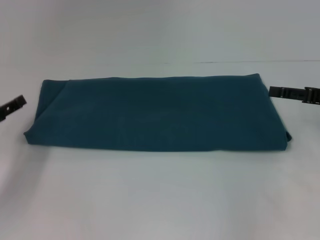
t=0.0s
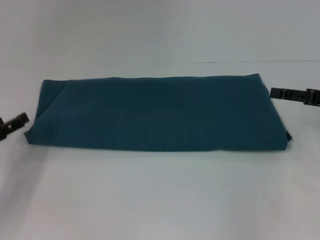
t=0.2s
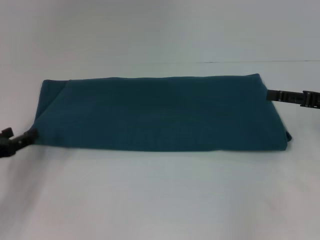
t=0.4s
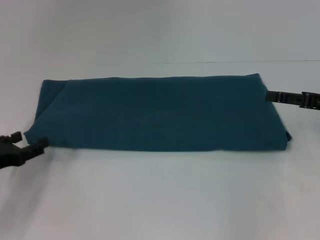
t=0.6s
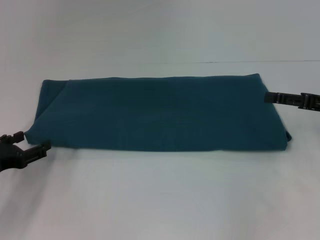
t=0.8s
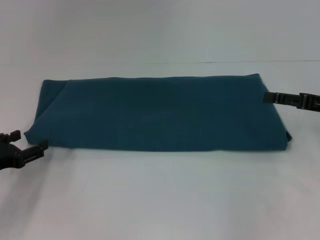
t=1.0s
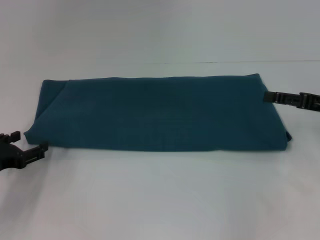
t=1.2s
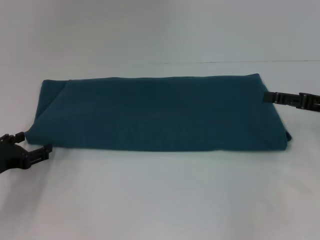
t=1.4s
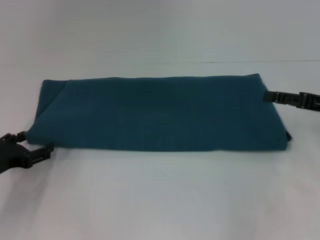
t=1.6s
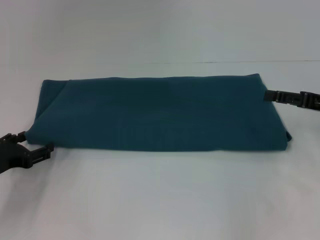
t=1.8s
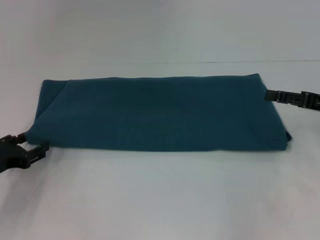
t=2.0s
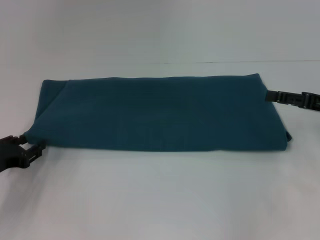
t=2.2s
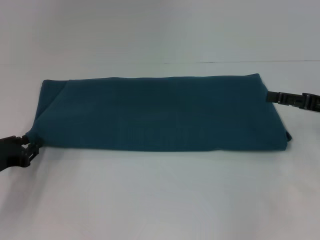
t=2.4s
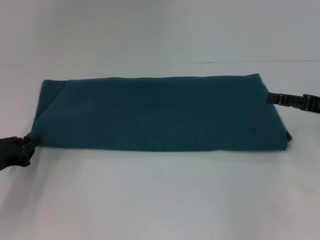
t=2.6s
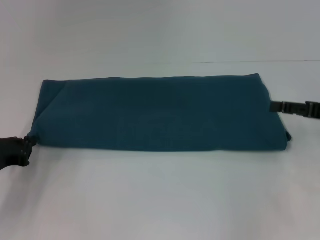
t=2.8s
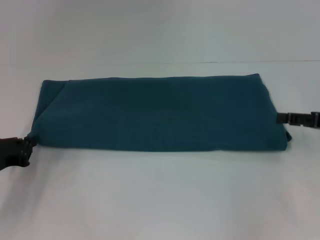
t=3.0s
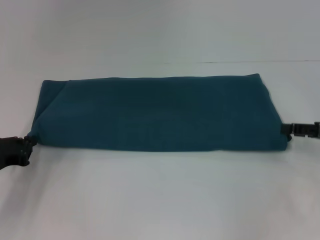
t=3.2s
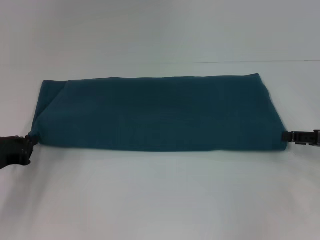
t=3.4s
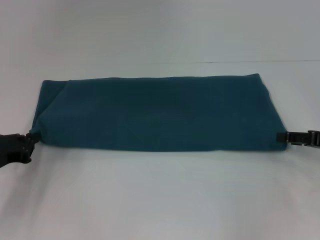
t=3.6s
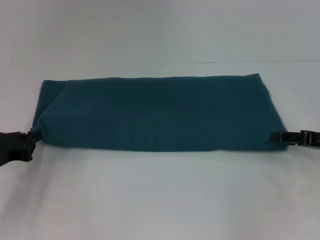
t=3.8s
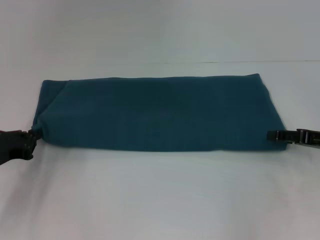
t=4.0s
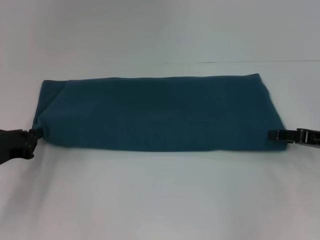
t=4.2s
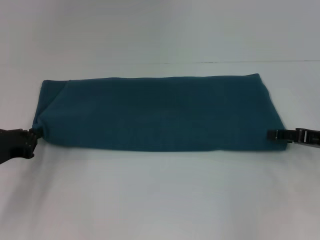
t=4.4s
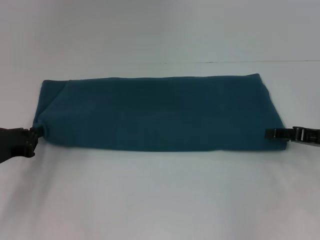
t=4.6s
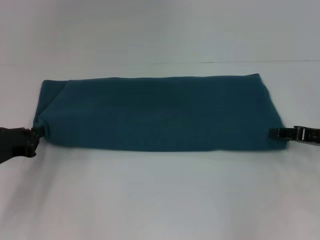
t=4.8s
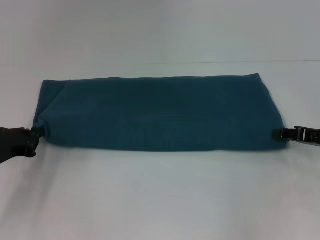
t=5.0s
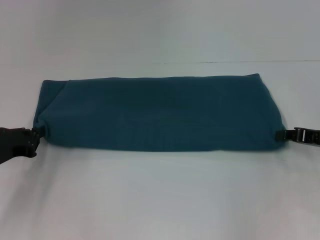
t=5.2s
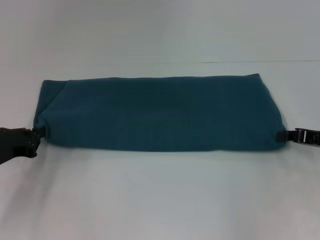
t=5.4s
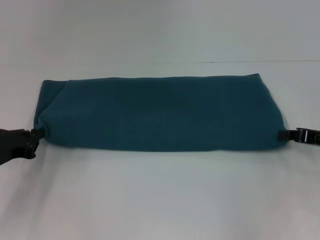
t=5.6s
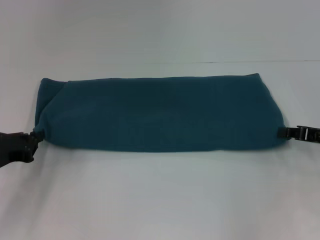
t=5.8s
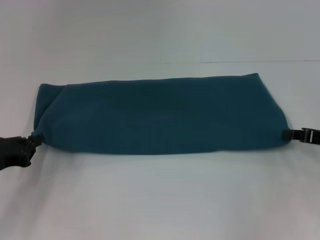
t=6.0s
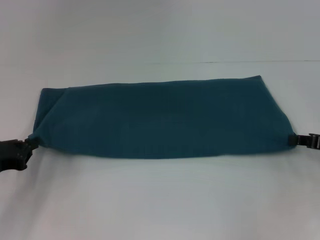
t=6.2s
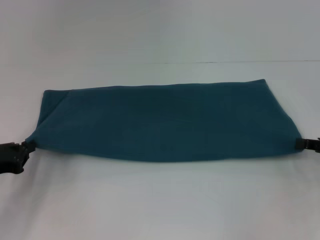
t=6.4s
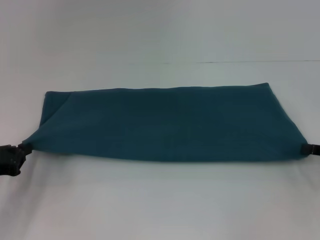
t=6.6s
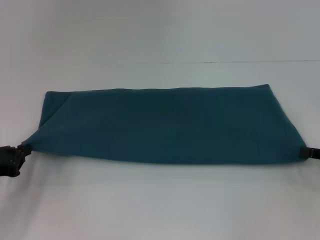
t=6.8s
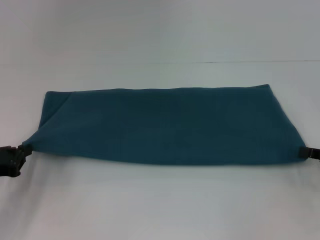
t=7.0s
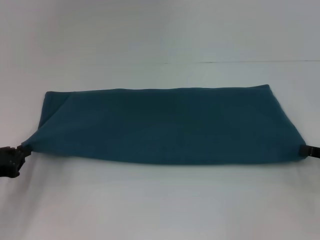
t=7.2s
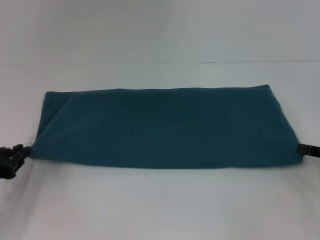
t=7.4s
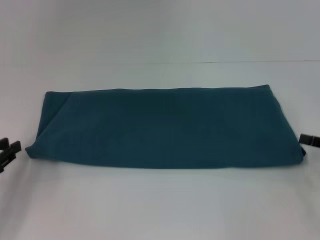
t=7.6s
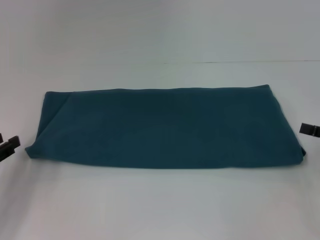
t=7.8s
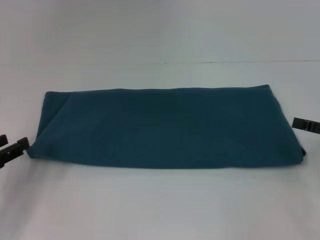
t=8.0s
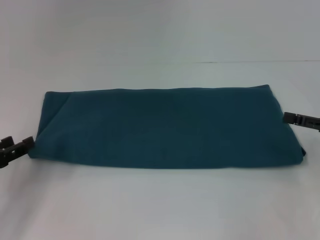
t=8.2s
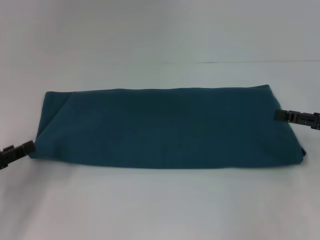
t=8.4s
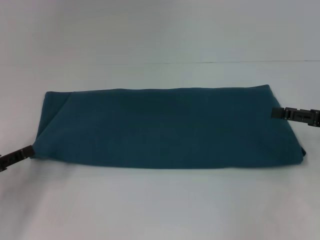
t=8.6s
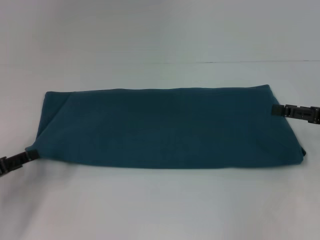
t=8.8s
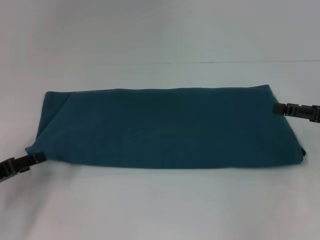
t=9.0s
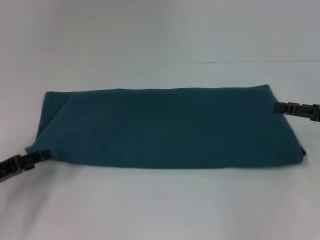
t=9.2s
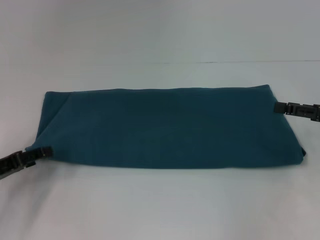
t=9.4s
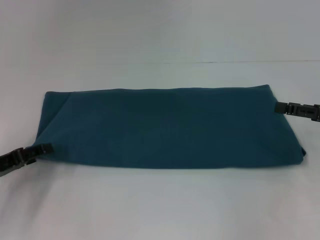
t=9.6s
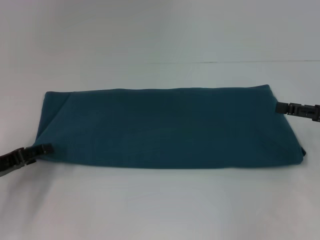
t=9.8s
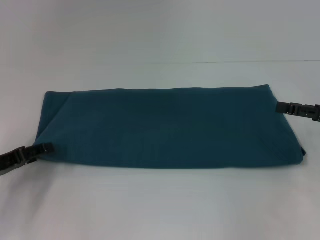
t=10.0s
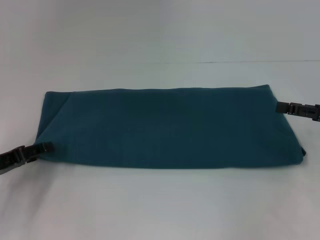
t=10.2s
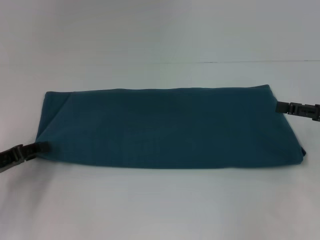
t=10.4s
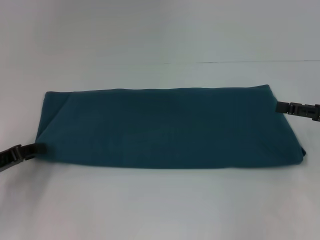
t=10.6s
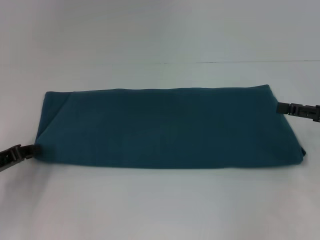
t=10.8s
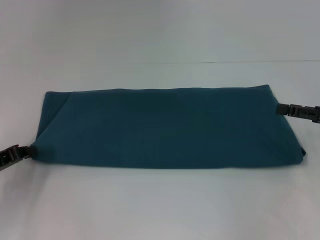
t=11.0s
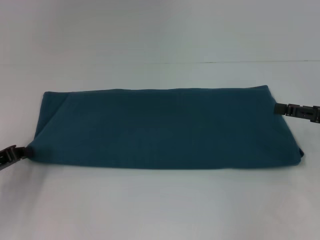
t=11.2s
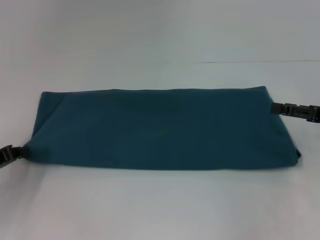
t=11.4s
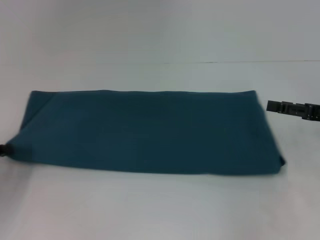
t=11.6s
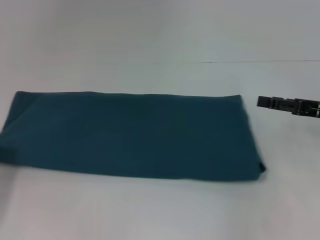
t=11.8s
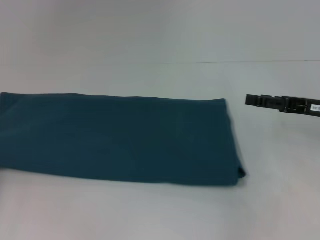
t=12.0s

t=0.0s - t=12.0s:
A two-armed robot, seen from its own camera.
Step, t=0.0s - t=8.0s: Pull the clothes with your left hand.
Step, t=0.0s - t=8.0s: Pull the clothes with your right hand.
t=1.6s - t=3.0s: The left gripper closes.
t=3.0s - t=4.4s: The grippers make only small movements.
t=4.4s - t=6.0s: The right gripper closes up.
t=6.0s - t=7.6s: The right gripper changes place by roughly 5 cm.
t=7.6s - t=9.0s: The left gripper opens its fingers. Meanwhile the right gripper shifts by about 5 cm, and opens up.
t=9.0s - t=10.4s: There are only small adjustments of the grippers.
t=10.4s - t=12.0s: The left gripper moves to the left, some 5 cm, and closes.

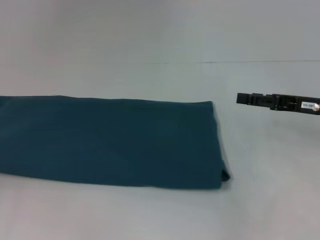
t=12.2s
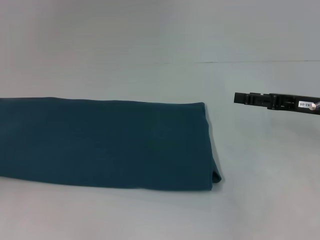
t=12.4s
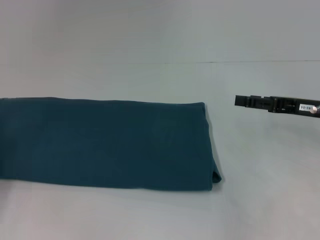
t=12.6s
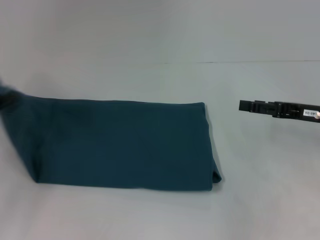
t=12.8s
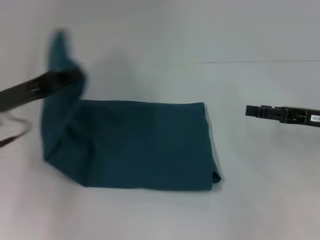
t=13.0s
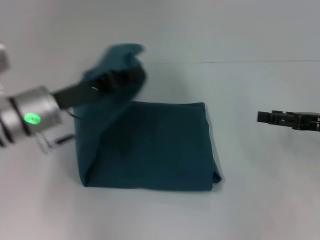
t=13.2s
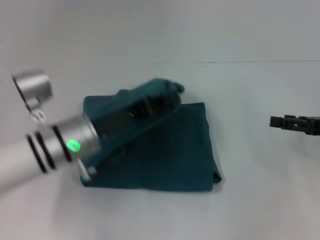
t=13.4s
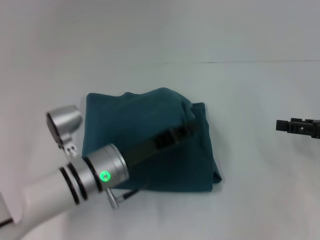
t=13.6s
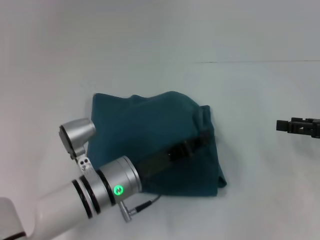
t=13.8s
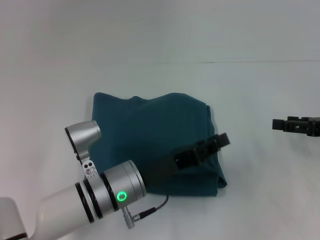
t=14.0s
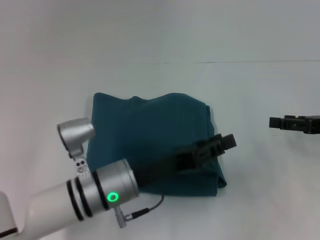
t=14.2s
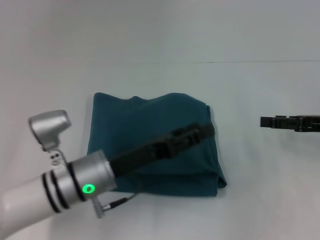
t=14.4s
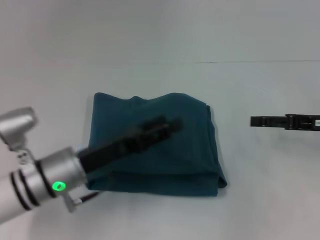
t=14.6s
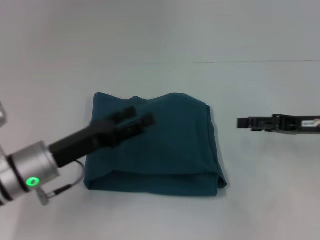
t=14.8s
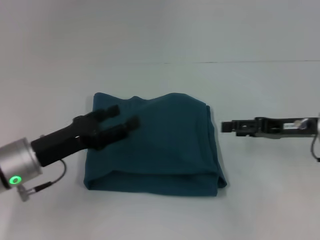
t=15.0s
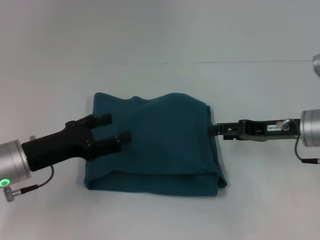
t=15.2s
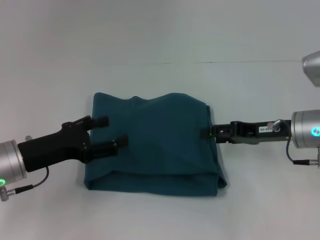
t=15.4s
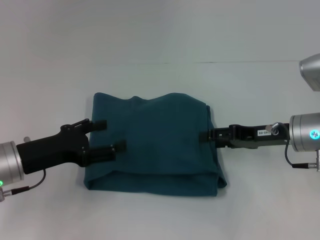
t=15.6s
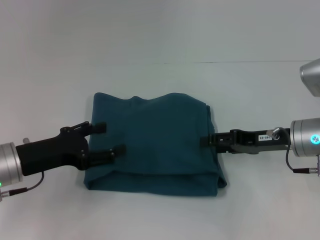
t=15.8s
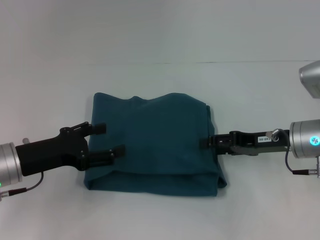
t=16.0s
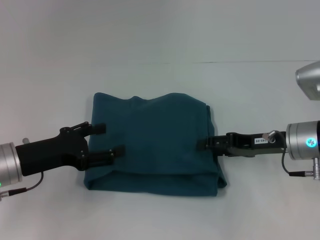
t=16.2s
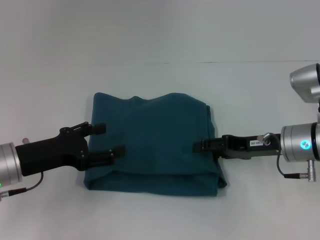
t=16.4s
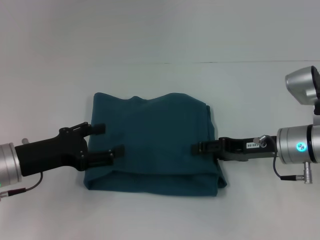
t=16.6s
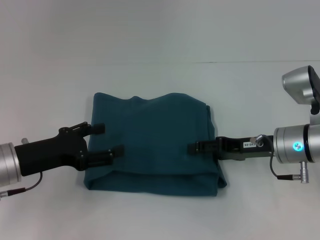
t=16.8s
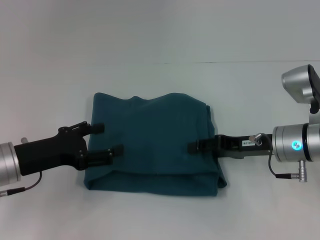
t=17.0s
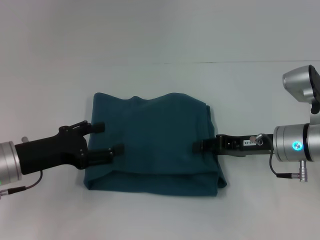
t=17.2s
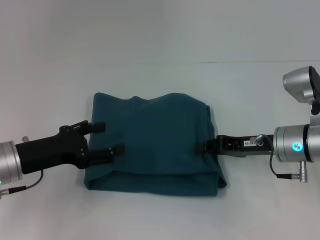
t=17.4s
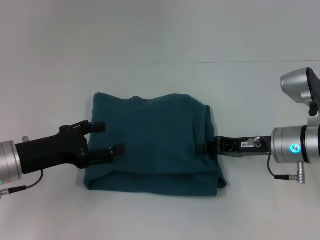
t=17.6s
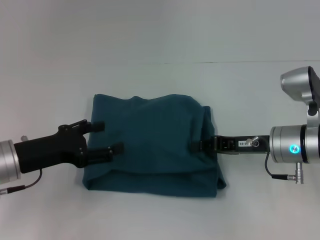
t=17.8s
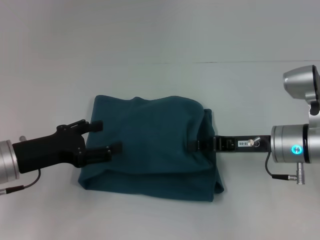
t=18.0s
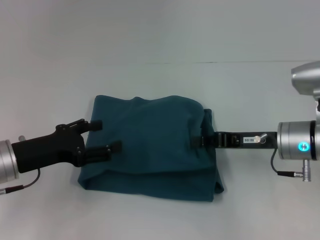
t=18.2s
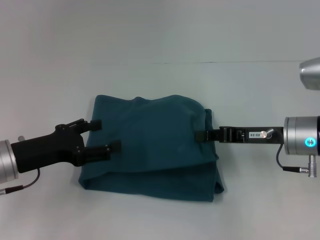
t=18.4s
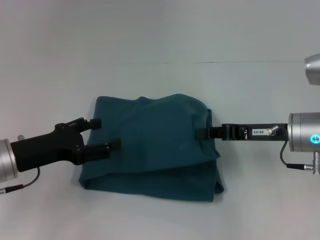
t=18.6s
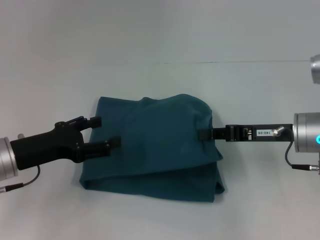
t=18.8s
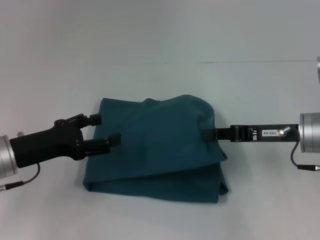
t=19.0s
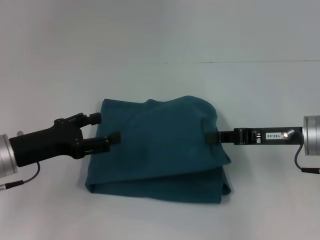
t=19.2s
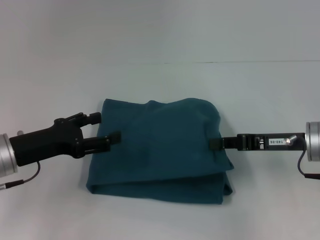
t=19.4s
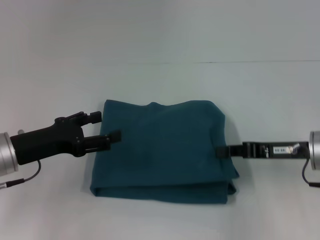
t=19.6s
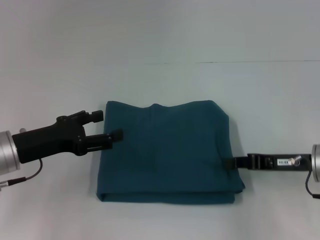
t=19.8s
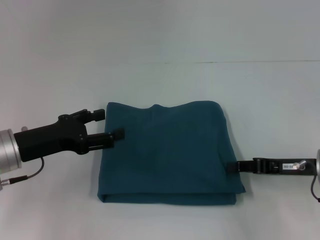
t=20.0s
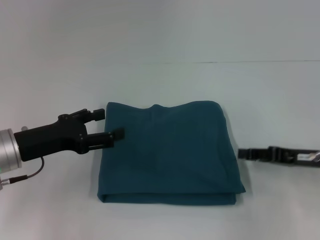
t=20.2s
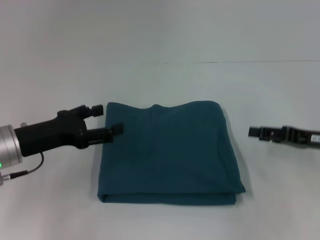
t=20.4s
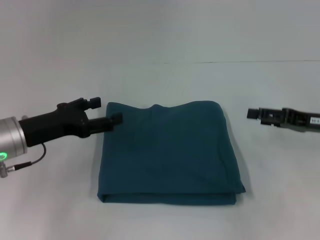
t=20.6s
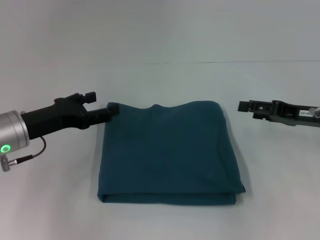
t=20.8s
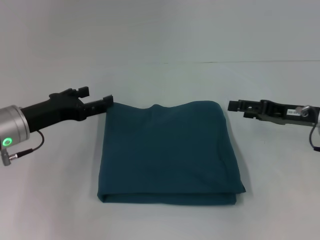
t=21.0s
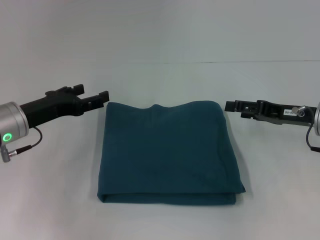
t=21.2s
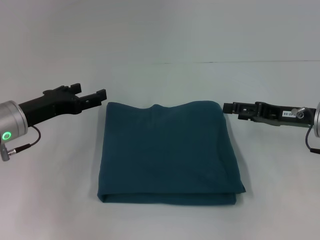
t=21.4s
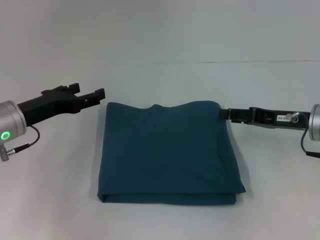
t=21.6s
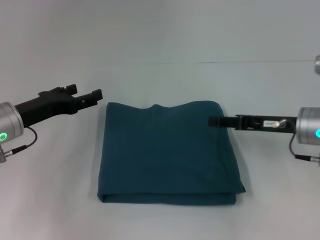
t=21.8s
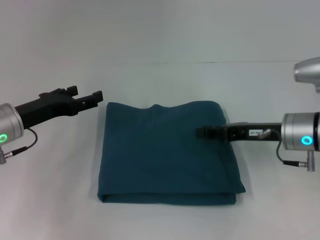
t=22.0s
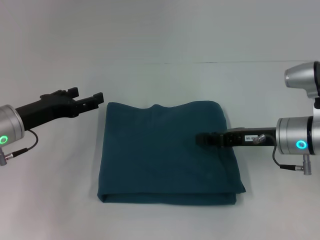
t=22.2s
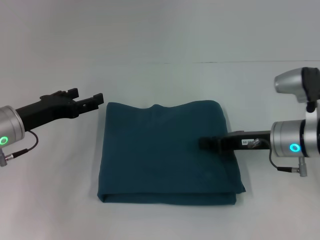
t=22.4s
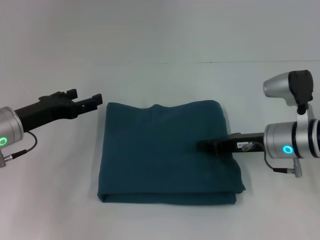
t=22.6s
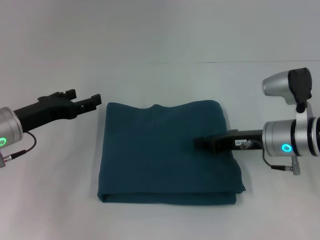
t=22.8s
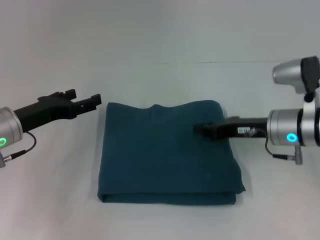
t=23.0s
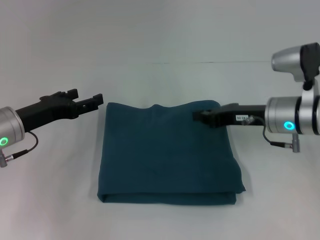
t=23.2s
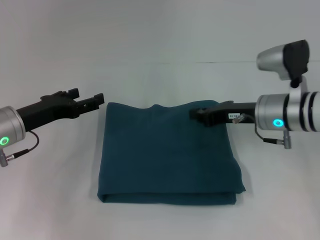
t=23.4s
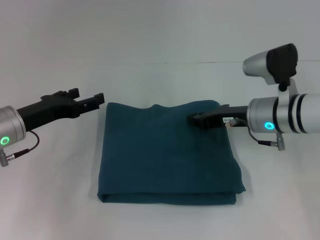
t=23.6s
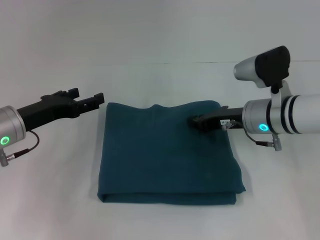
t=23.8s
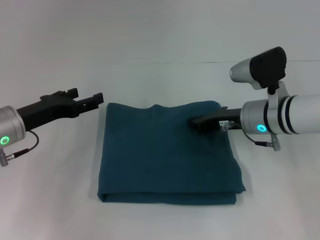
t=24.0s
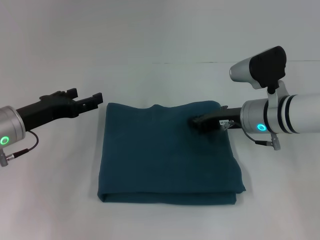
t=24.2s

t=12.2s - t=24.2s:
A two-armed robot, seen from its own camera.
Step, t=12.2s - t=14.8s: Fold the clothes to the left.
t=12.2s - t=13.8s: The right gripper shifts some 5 cm to the right. Meanwhile the left gripper is displaced to the right by approximately 30 cm.
t=13.8s - t=15.2s: Both grippers move to the left, approximately 10 cm. The left gripper opens.
t=15.2s - t=16.6s: The grippers stay close to where they were, moving slightly.
t=16.6s - t=18.2s: The right gripper closes up.
t=18.2s - t=19.8s: The right gripper shifts about 5 cm to the right.
t=19.8s - t=21.2s: The right gripper ends up some 5 cm from where it was, and opens up.
t=21.2s - t=22.6s: The right gripper moves to the left, some 5 cm, and closes its fingers.
t=22.6s - t=24.2s: The right gripper changes place by some 5 cm.
